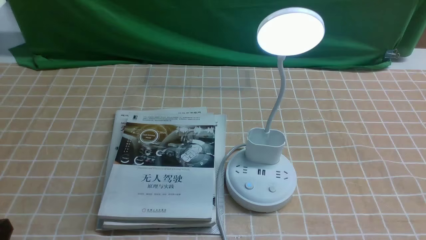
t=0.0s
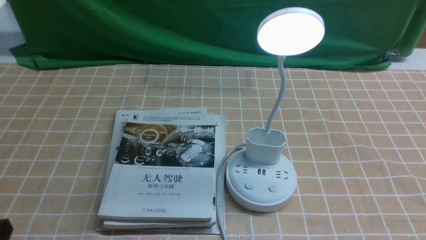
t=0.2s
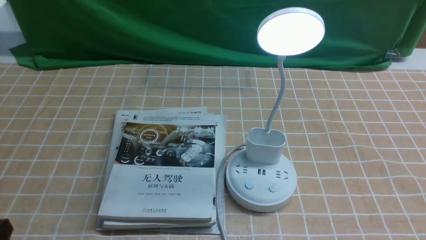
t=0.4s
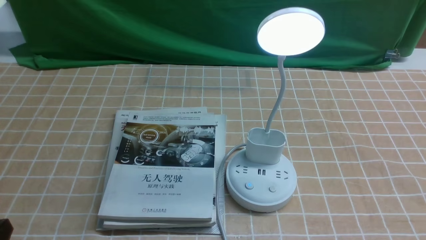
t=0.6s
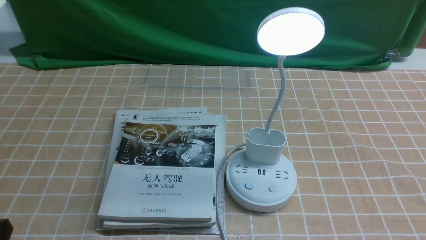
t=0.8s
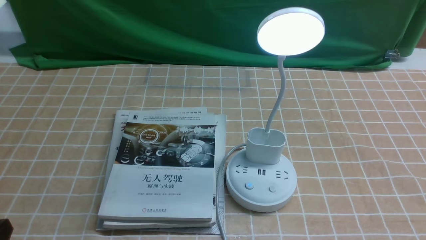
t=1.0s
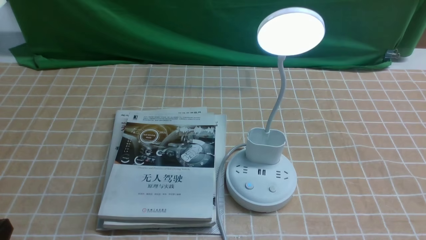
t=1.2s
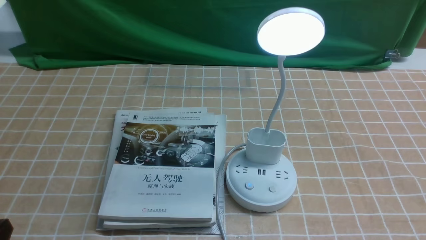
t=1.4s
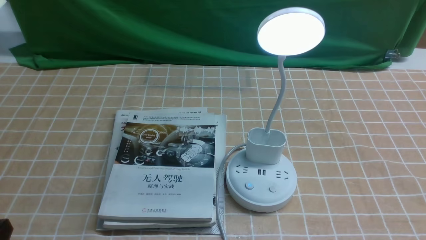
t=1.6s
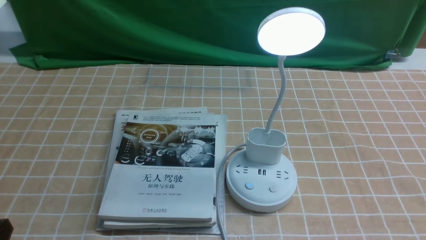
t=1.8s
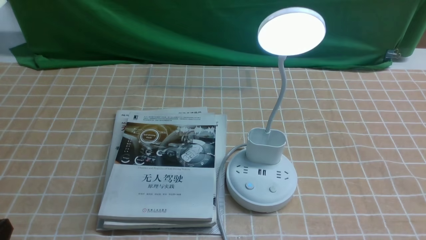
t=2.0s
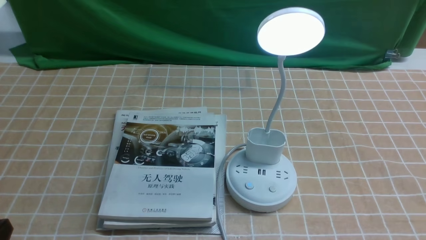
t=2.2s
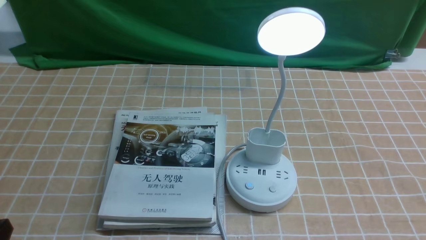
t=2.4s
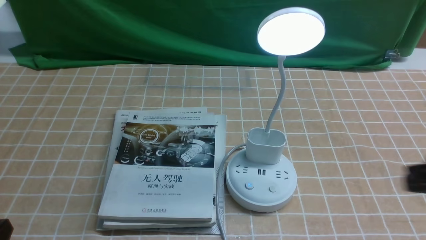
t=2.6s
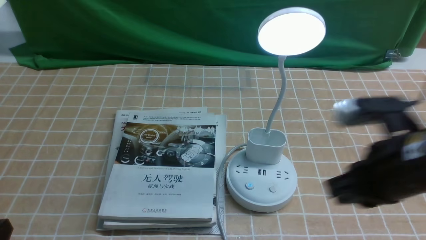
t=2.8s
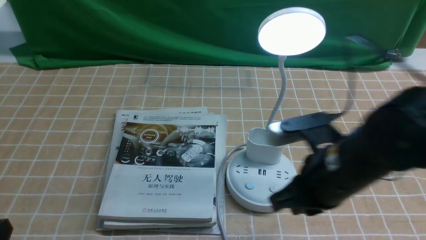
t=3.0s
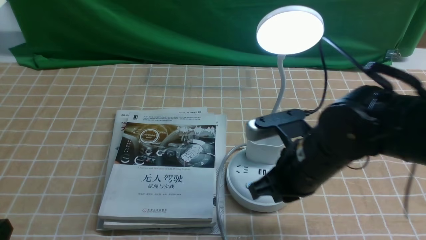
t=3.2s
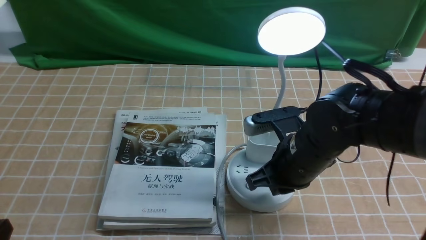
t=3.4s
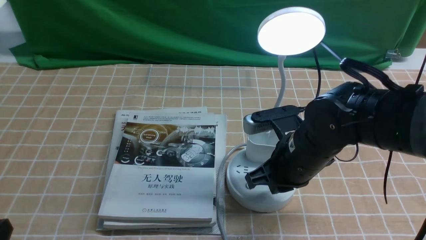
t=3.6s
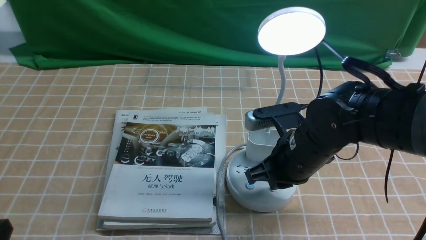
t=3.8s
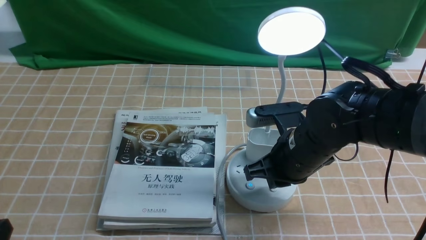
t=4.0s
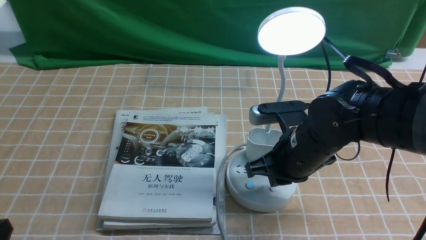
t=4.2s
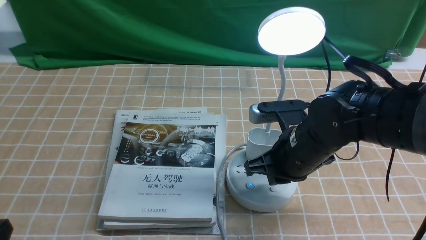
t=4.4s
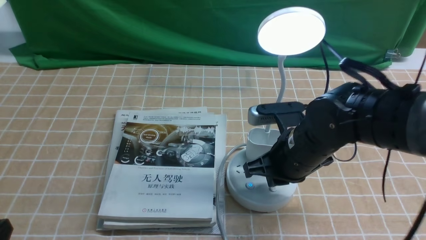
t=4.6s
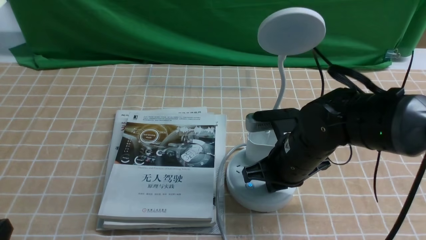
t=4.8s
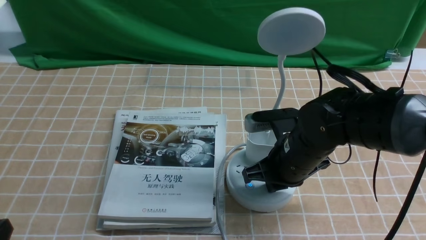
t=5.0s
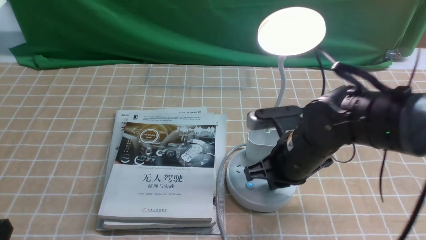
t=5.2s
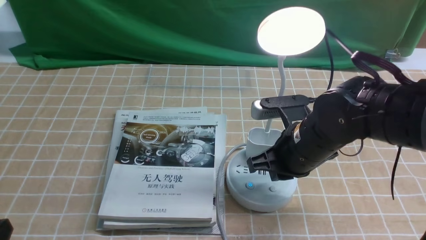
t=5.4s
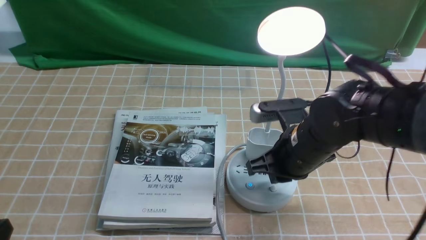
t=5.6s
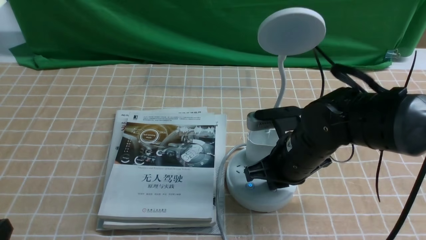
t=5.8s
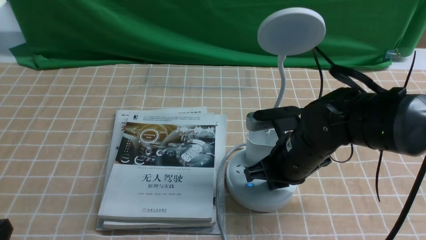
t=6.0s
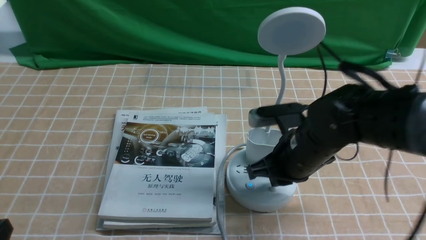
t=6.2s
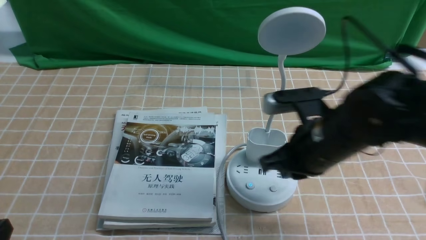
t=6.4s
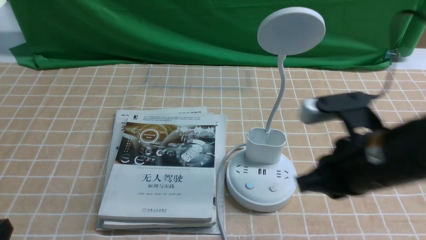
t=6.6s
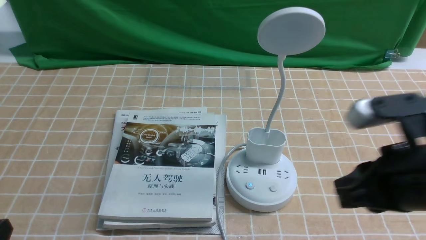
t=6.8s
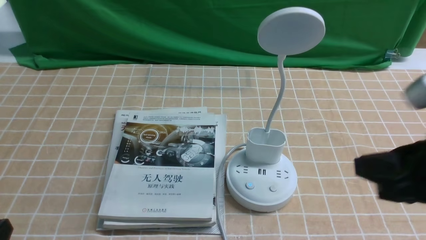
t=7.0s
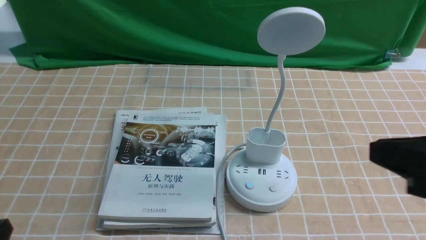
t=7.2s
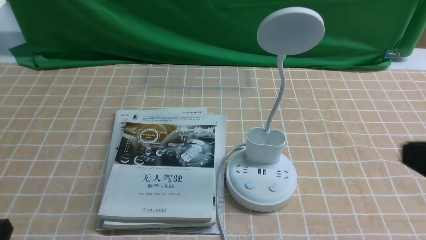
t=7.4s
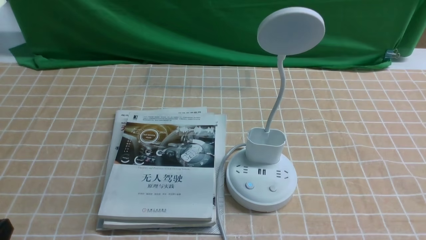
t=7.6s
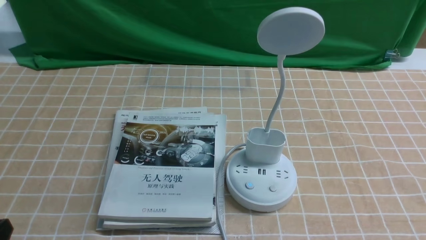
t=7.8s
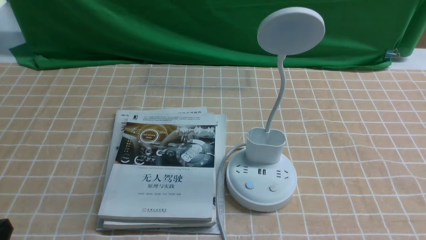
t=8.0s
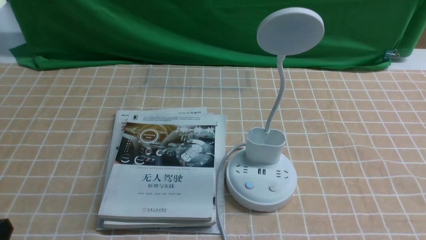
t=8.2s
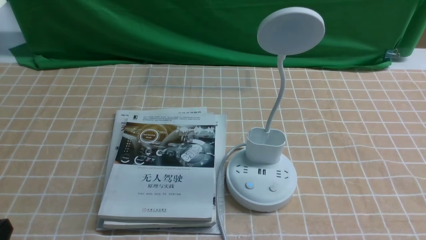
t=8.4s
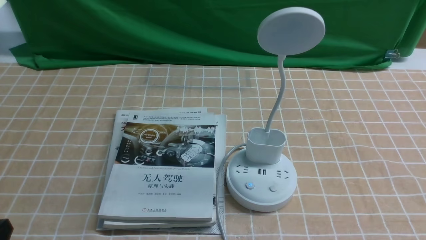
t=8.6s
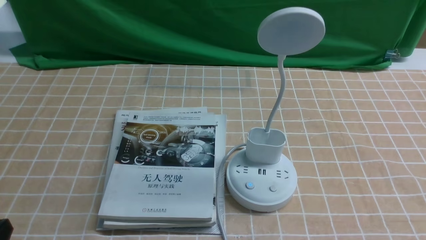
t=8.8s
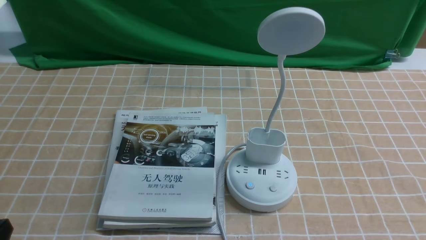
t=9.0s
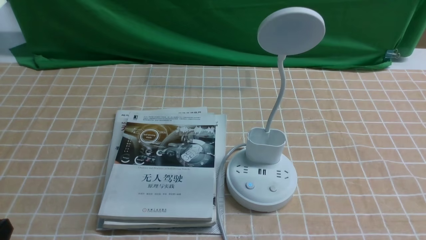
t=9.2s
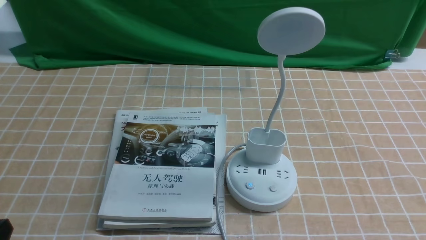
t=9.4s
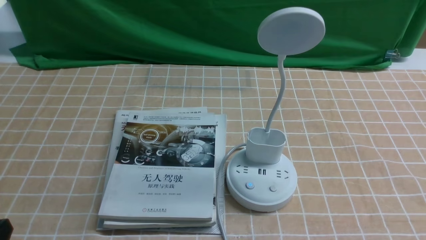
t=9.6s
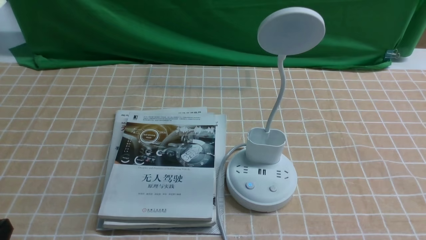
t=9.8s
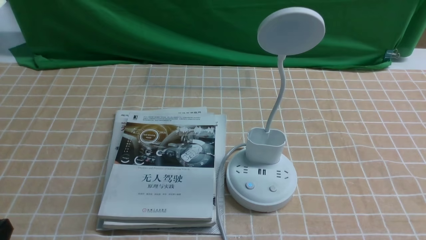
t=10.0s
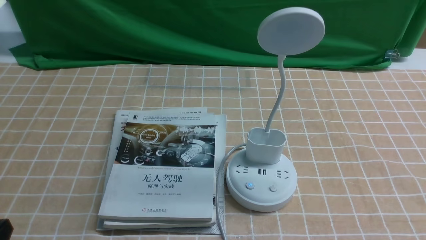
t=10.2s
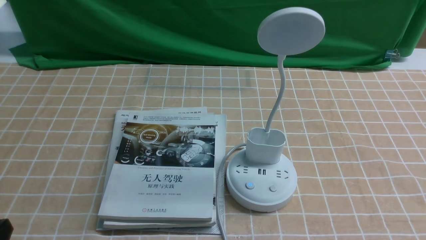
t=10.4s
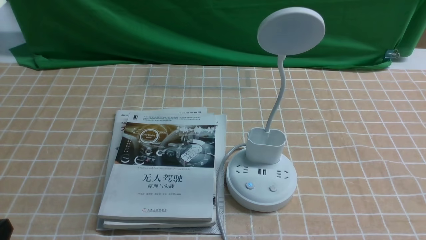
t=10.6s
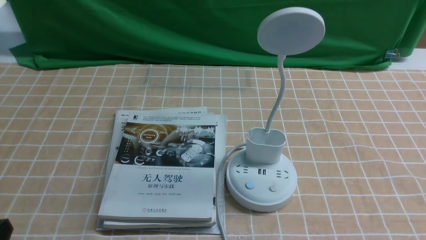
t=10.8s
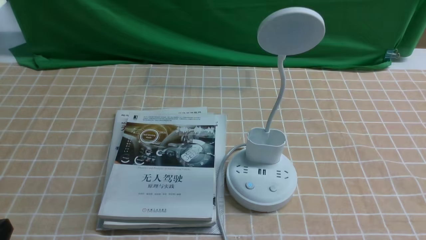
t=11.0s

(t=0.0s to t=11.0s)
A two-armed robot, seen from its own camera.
Task of the whole recording: turn off the desk lamp on the light coffee tablecloth by hand.
Step, t=0.0s - t=6.2s: use the right arm to press the button switch on the lamp holder.
t=1.6s - t=3.2s: The right gripper heads forward and to the left, covering approximately 25 cm, and closes up.
t=3.2s - t=6.2s: The grippers make only small movements.
t=6.2s - t=7.8s: The right gripper is displaced backward and to the right by about 30 cm.

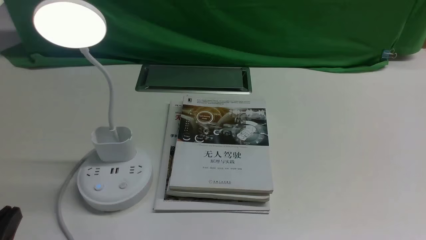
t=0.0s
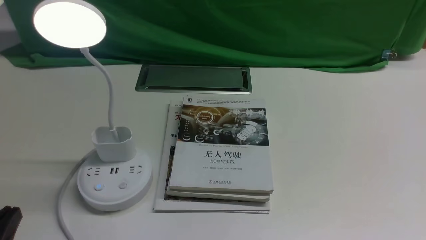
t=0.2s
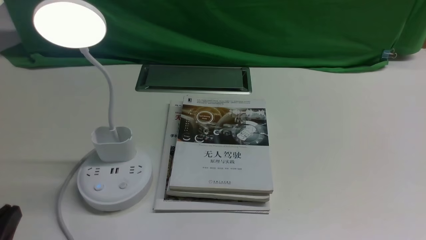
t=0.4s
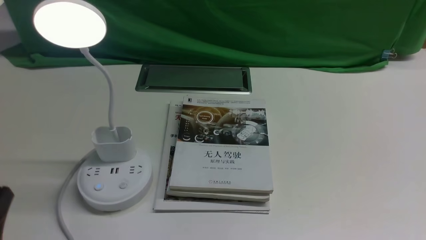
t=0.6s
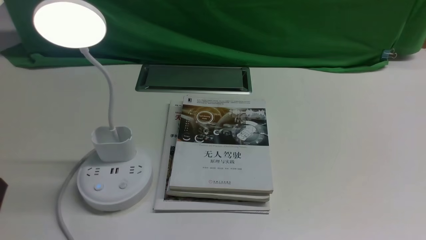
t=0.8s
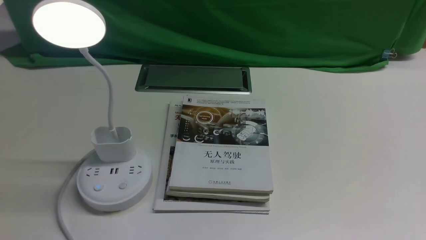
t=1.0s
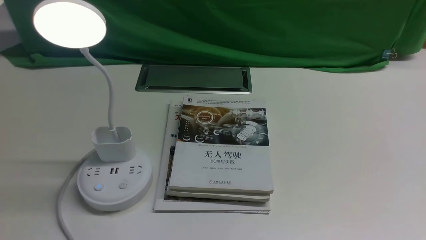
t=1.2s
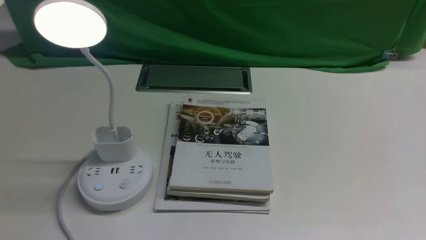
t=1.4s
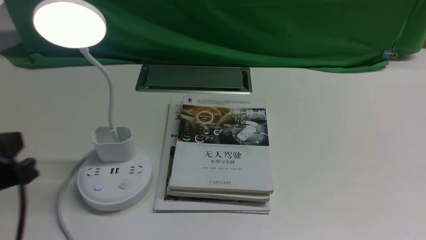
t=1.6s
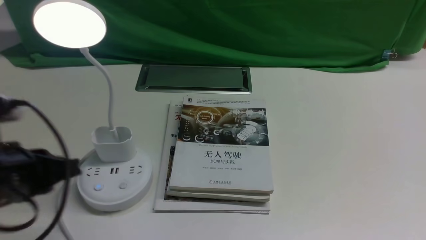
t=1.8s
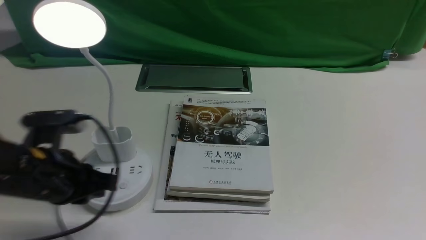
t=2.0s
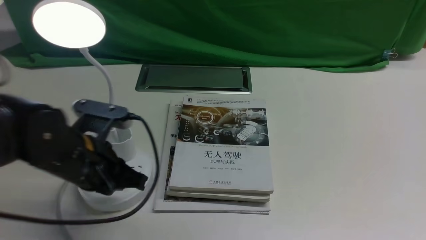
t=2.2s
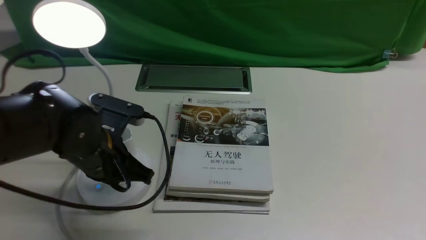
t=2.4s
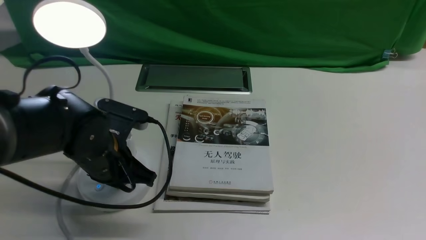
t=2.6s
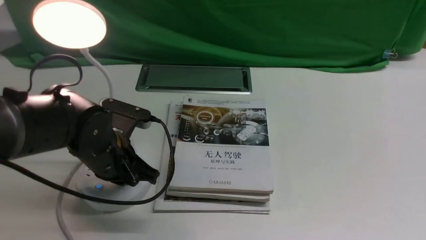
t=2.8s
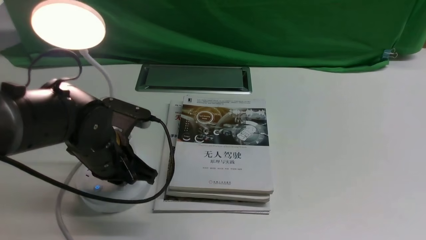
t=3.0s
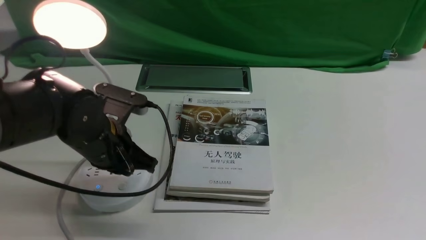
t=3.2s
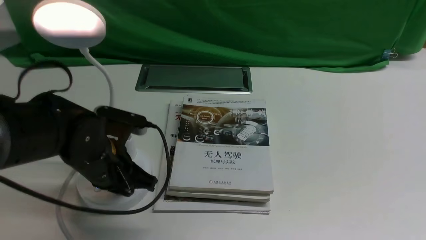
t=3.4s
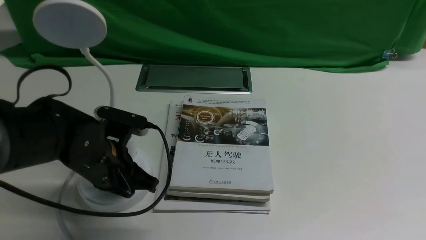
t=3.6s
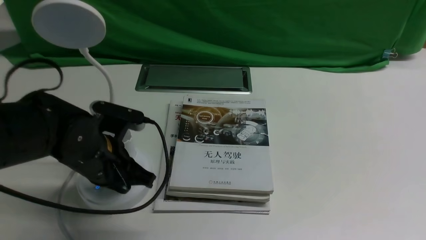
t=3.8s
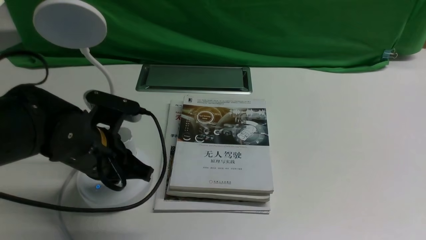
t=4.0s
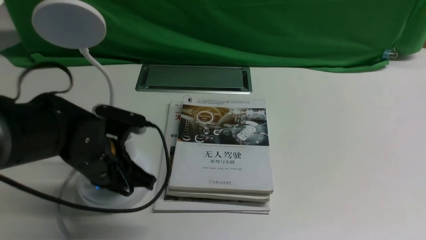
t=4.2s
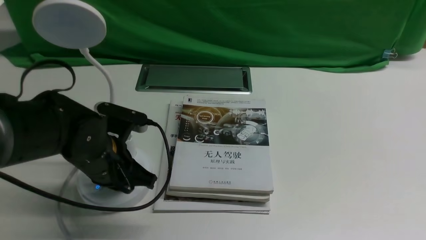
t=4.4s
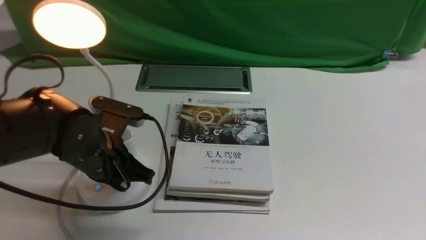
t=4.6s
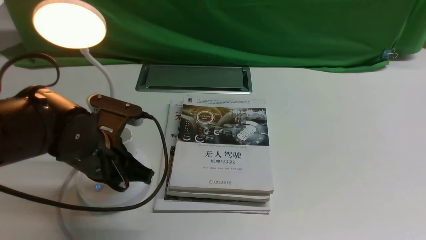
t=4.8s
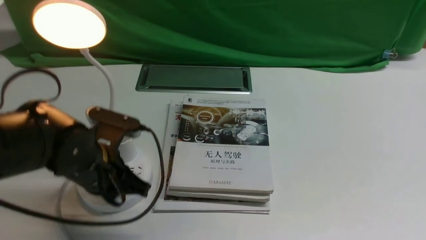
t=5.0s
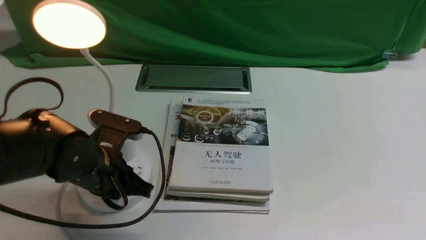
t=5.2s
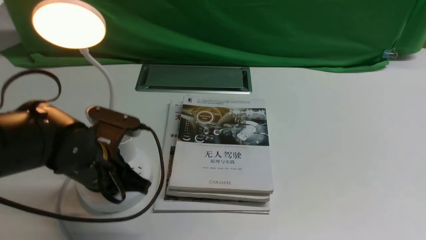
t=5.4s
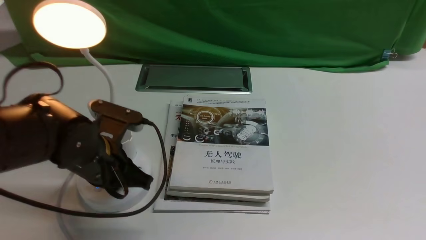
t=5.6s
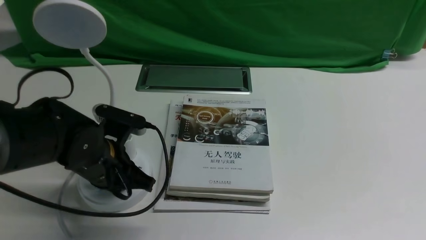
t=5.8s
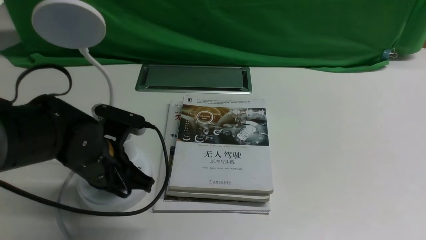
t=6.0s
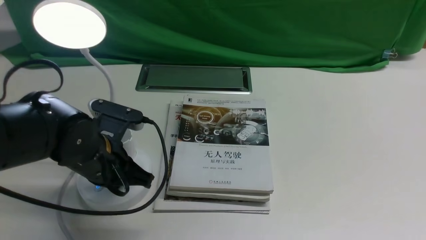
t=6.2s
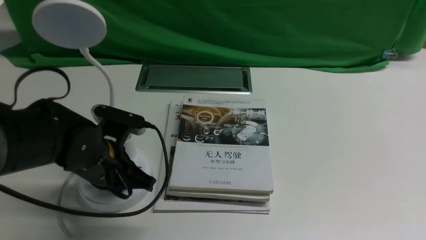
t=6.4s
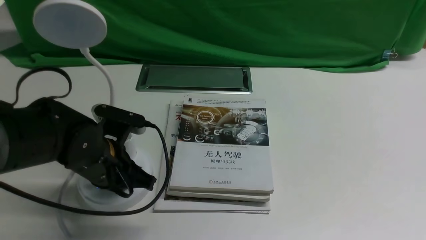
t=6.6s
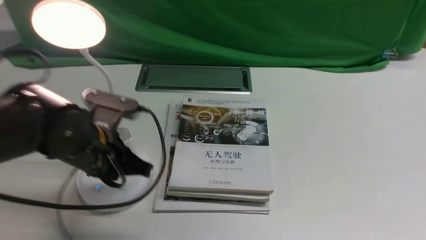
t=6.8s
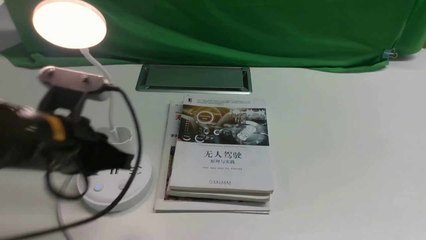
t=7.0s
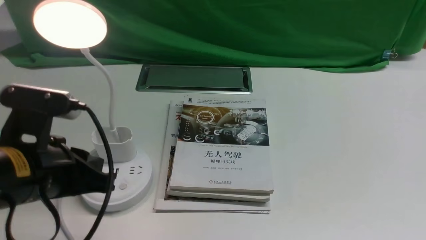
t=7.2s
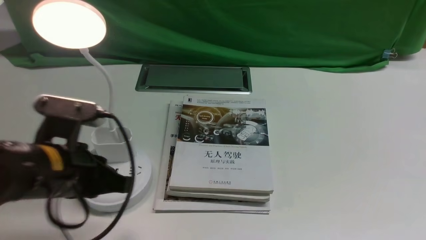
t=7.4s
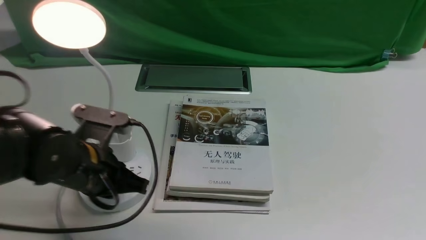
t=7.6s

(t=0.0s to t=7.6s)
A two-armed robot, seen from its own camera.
Task of the whole recording: turn off the desk lamp on the white desktop by hand.
t=0.0s - t=1.6s: The left gripper shifts roughly 15 cm upward and forward.
t=1.6s - t=3.0s: The left gripper goes some 20 cm forward, downward and to the right.
t=3.0s - t=6.0s: The grippers stay close to where they were, moving slightly.
t=6.0s - t=7.6s: The left gripper reaches roughly 10 cm upward, then returns.
